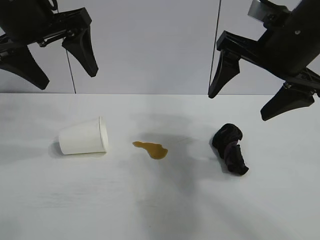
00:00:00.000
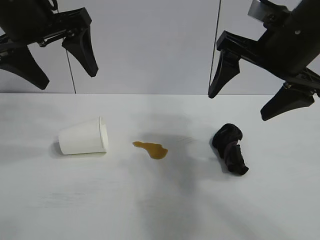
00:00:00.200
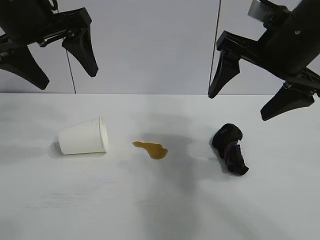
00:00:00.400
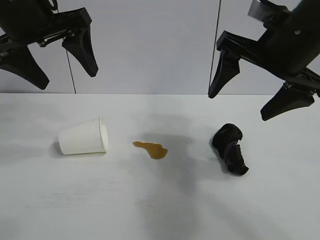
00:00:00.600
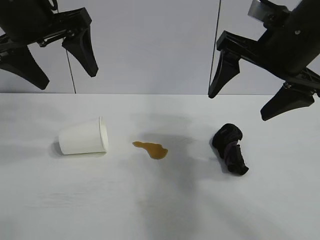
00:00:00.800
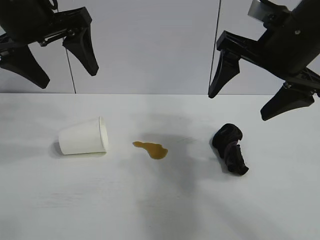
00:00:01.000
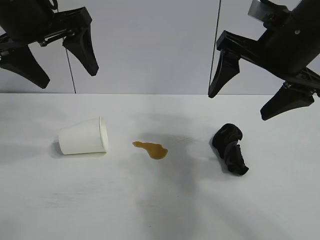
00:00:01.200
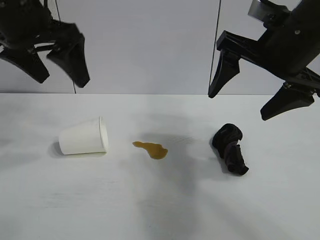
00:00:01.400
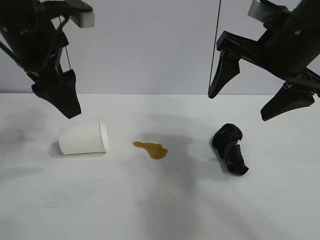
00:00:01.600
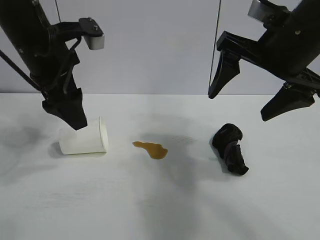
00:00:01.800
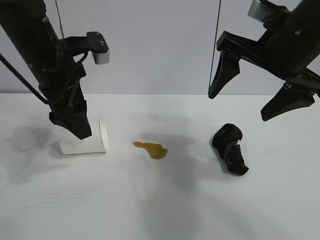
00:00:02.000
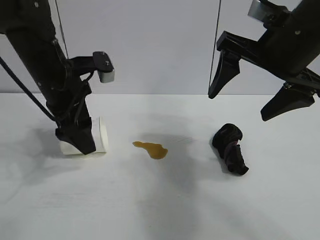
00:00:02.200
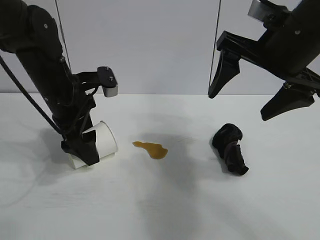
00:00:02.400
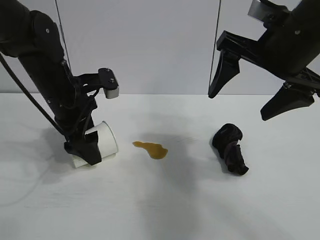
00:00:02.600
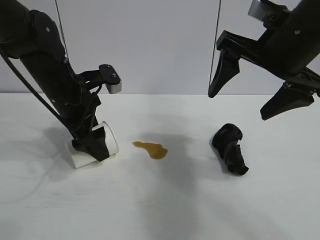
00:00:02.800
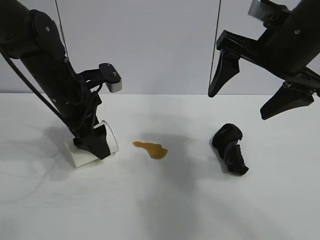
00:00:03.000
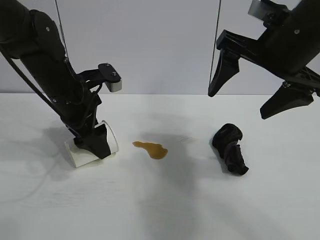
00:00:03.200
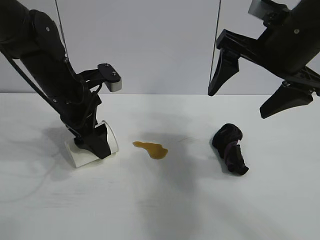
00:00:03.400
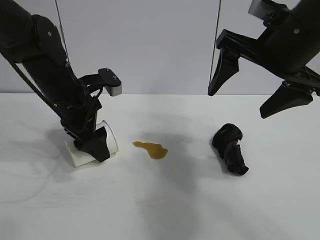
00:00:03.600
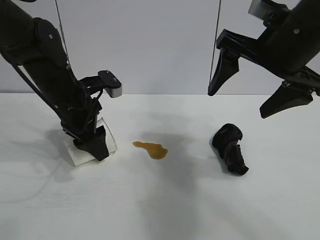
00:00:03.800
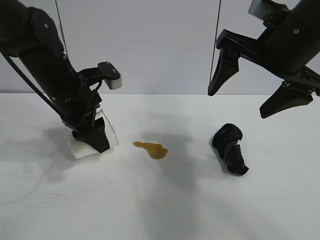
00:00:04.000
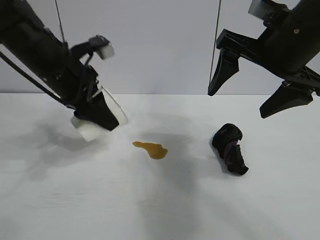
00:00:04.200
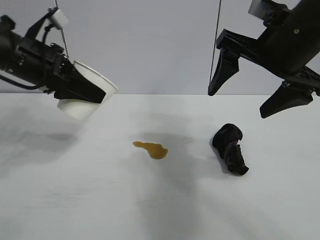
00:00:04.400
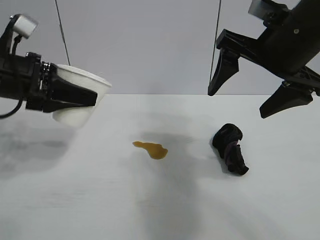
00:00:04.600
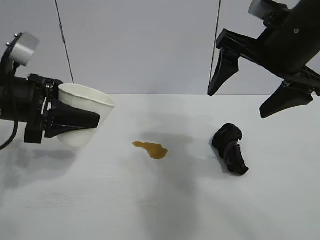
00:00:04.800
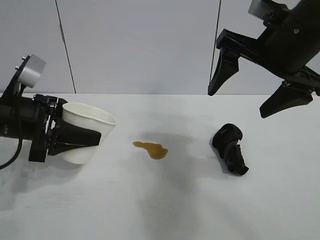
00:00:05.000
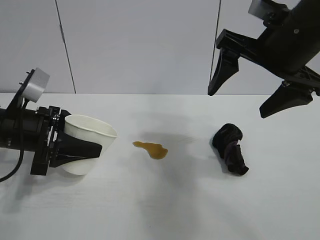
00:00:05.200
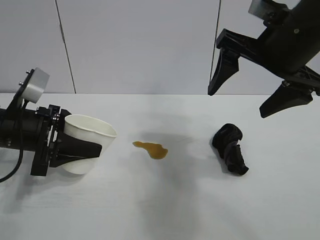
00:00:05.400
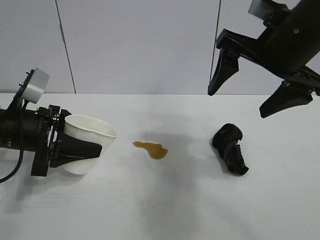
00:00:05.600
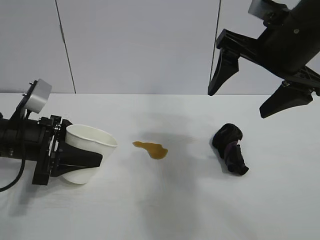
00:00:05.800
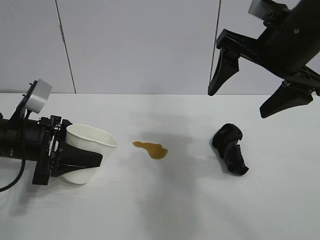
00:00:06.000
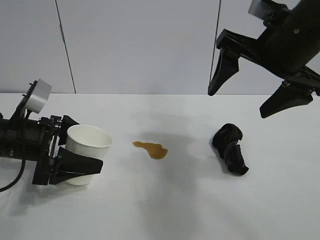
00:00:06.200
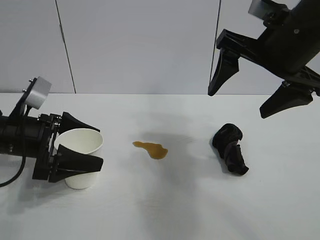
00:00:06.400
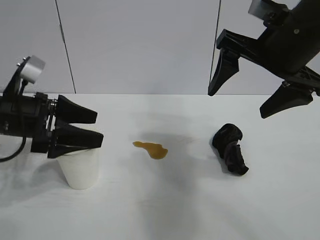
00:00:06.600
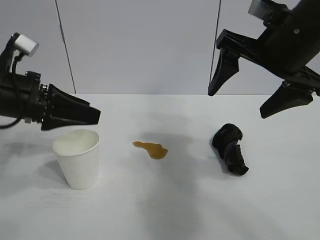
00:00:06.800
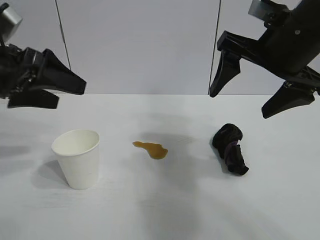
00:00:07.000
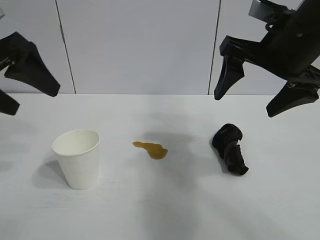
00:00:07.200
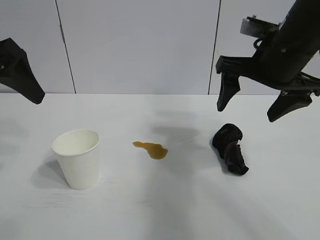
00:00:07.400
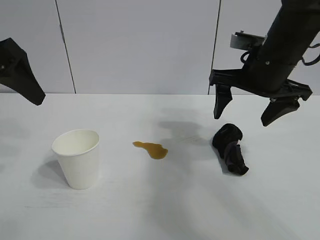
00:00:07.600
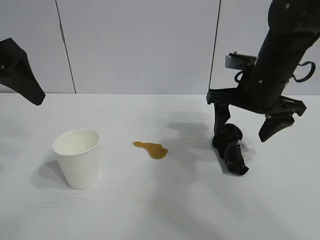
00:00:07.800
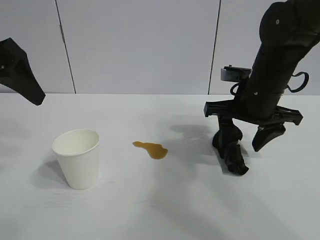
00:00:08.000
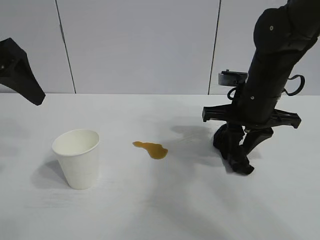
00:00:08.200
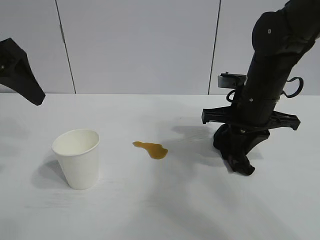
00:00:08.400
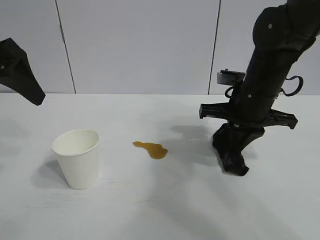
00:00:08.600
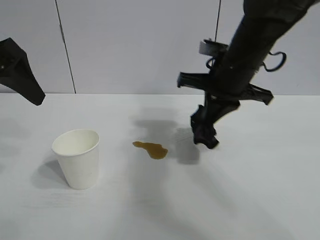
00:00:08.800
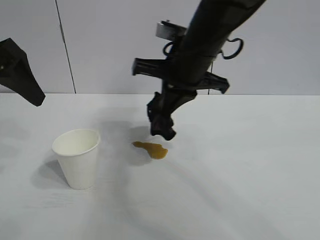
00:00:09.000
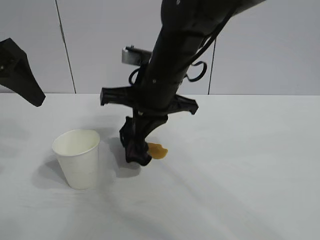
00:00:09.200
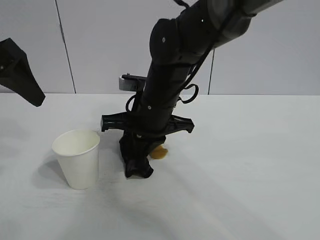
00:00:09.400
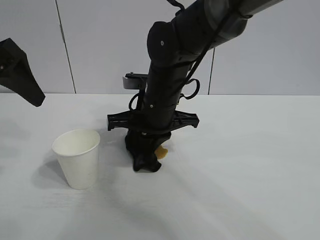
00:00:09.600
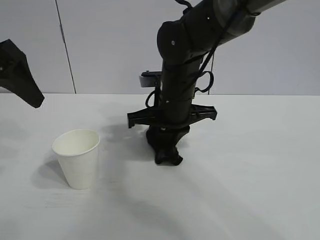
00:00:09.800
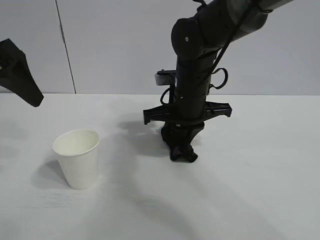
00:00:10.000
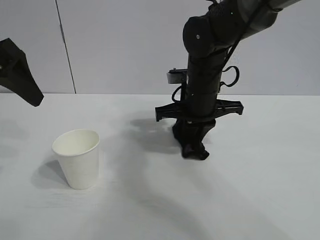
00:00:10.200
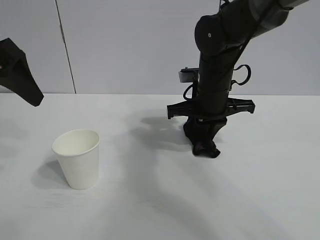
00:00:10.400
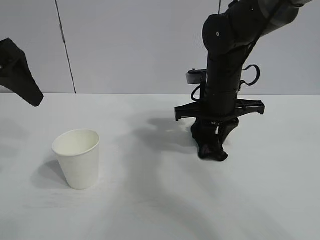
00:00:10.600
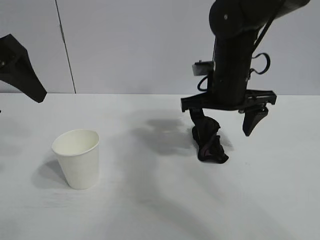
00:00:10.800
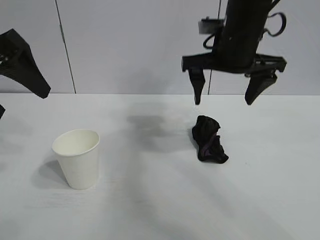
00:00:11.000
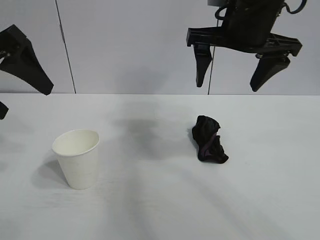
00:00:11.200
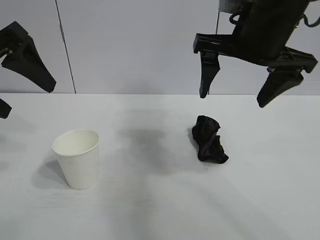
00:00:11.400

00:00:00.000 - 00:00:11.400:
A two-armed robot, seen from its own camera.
Task of the whole recording: the left gripper pick up the fallen cup and place it upright, the right gripper grasp the black rag and wipe the stain on the table, the right gripper put the black rag back in its original position.
Step, 00:00:01.000 - 00:00:03.800: Grasp the paper cup with left gripper.
Step, 00:00:04.000 - 00:00:06.400: Stand the paper cup upright with left gripper.
Step, 00:00:06.600 - 00:00:08.400: Grasp the rag with right gripper.
Step, 00:00:08.600 - 00:00:10.400: Wipe the stains off the table with the rag with right gripper.
